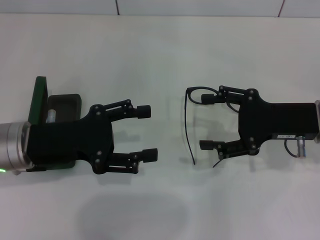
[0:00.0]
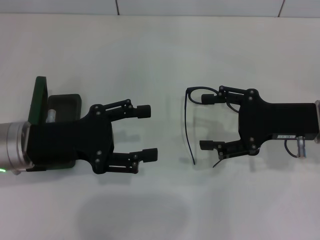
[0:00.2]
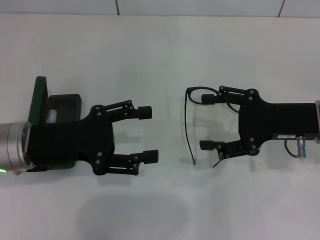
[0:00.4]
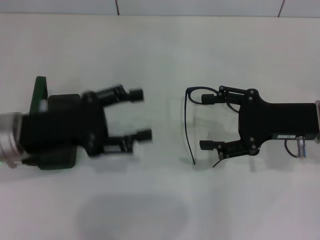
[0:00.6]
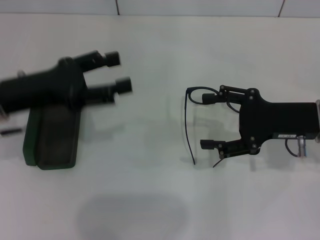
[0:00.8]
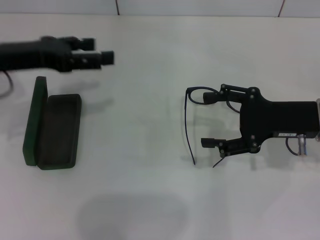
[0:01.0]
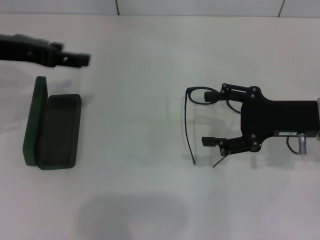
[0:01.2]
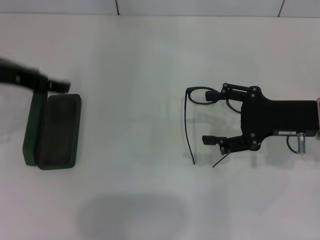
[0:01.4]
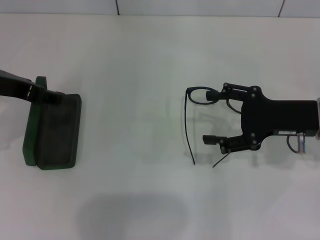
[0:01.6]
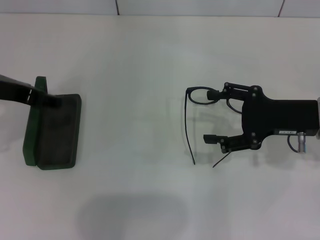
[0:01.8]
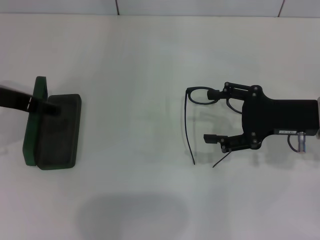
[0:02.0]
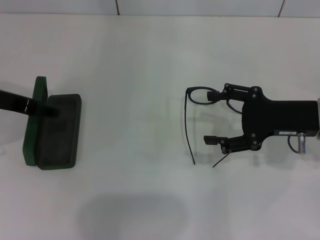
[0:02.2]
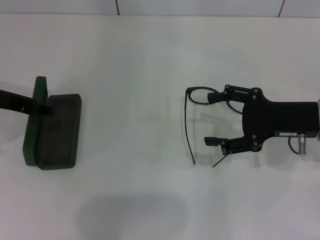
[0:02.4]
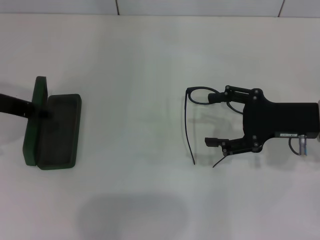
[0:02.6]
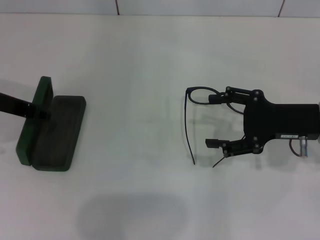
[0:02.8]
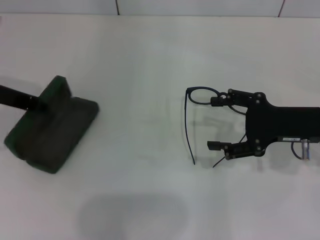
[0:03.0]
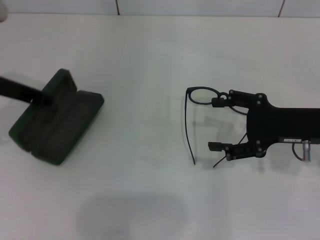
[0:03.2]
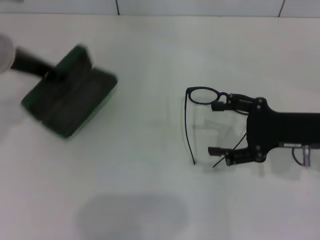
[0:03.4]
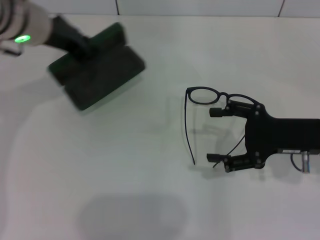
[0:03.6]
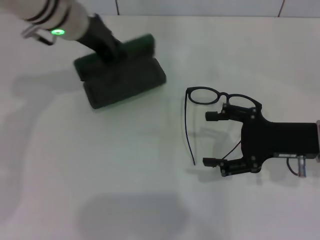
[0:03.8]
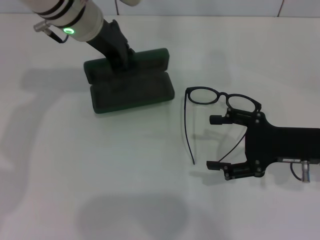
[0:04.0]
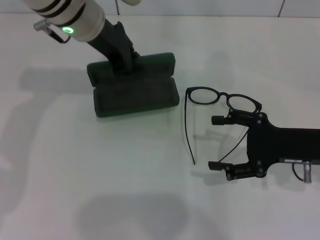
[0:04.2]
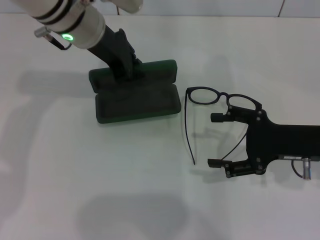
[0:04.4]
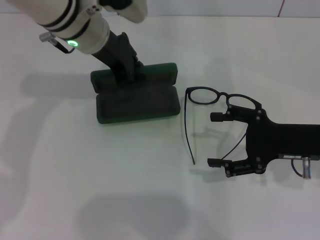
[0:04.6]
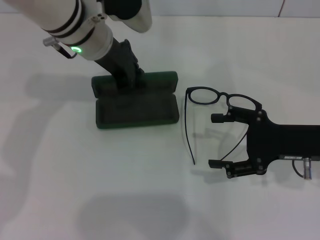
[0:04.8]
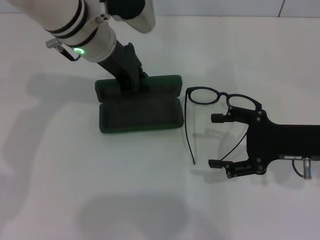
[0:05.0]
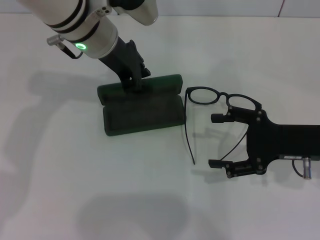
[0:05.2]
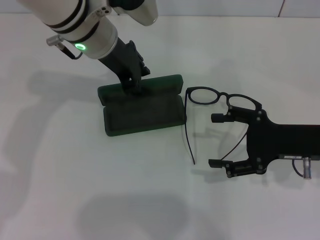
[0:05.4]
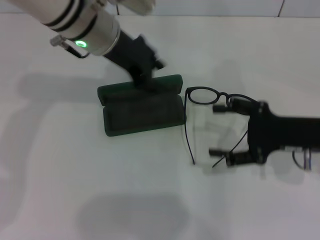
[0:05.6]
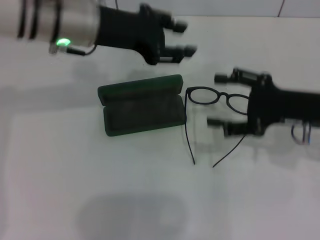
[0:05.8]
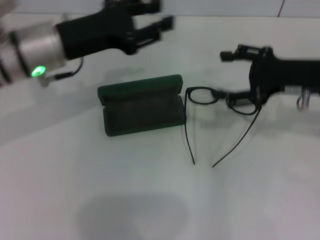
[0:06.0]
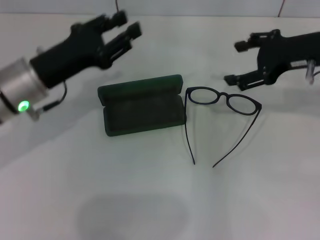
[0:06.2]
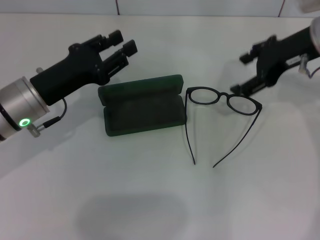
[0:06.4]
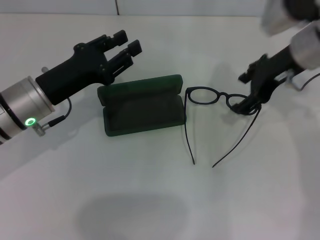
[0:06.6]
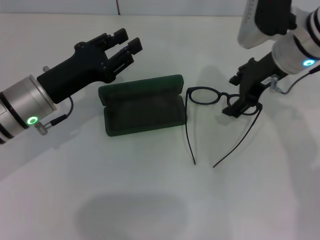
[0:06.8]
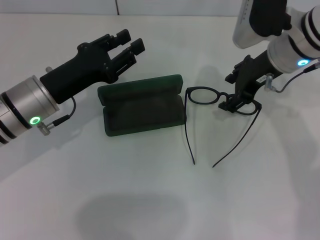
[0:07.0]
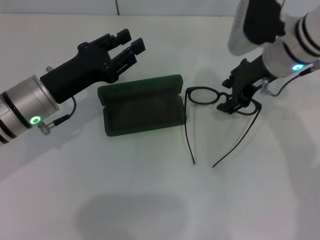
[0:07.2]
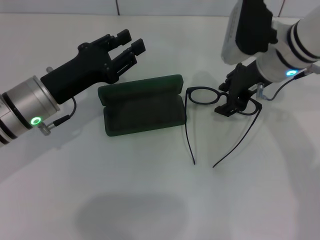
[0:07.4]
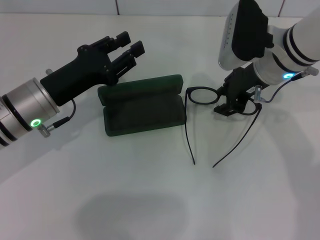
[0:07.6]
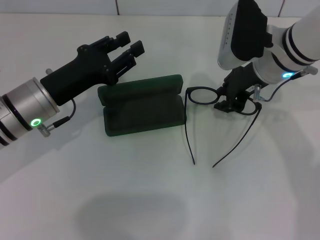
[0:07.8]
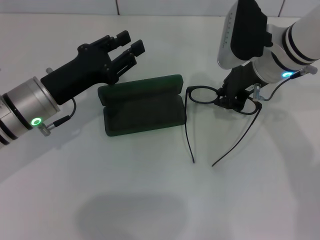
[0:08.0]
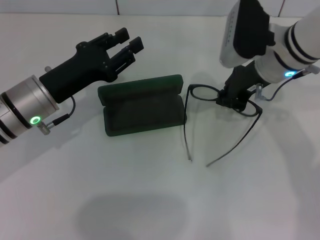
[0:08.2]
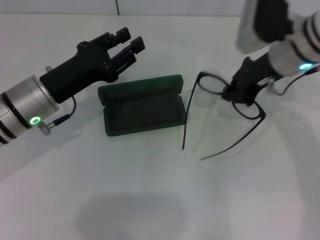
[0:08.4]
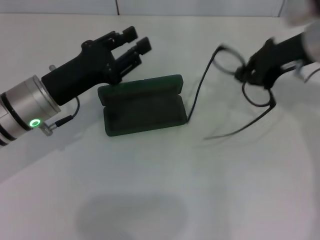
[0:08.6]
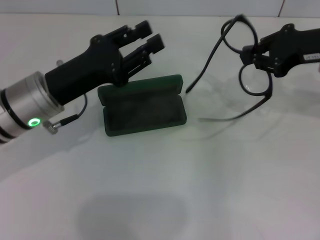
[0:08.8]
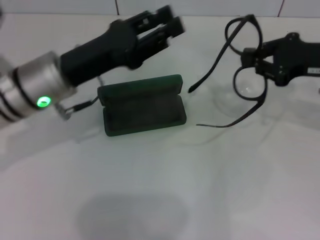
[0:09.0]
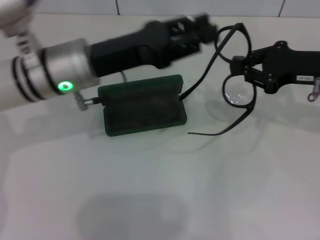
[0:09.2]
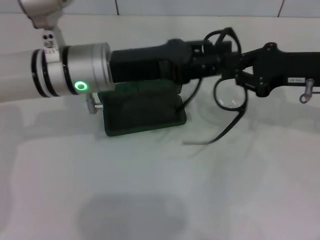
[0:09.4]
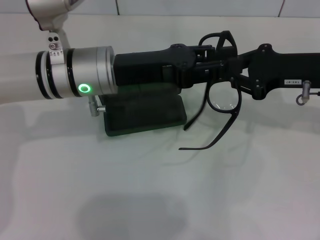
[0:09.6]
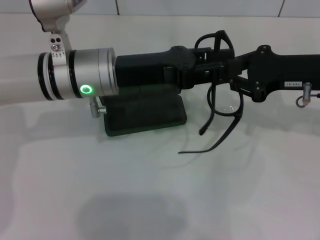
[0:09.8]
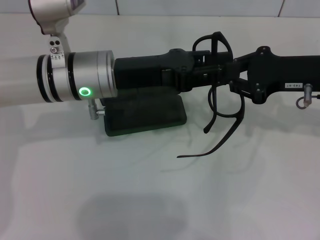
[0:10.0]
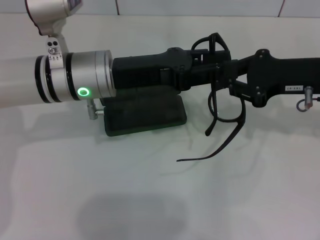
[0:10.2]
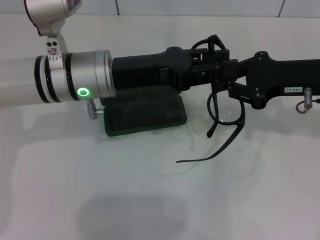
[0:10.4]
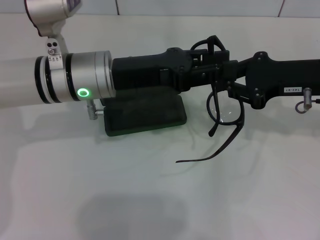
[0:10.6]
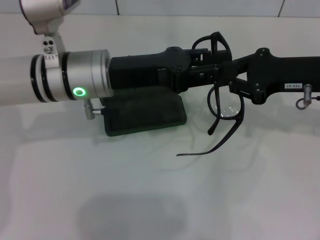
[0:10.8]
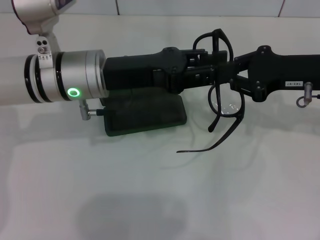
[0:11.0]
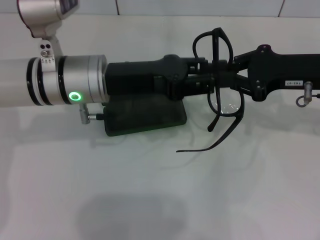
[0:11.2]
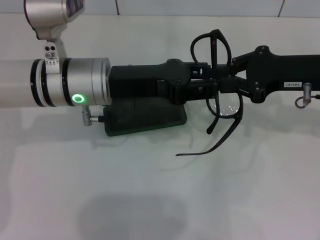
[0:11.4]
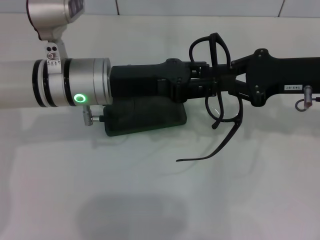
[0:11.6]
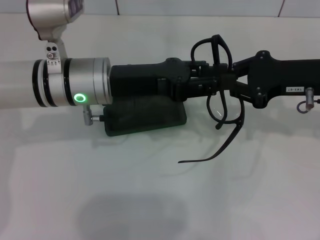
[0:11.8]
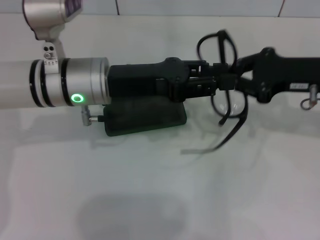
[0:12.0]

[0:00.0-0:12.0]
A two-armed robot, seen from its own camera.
Step, 0:00.0 to 0:03.2: Grab the glasses case with your left hand.
Step, 0:03.4 to 0:05.4: Place the glasses case in the center of the table with your left hand.
Step, 0:05.6 to 0:08.2: Grab the eyeglass frame with your right hand.
0:00.0 to 0:01.6: The left gripper moves upward, approximately 10 cm.
0:01.6 to 0:03.0: The left gripper closes its fingers.
0:03.0 to 0:04.4: The left gripper shifts some 15 cm to the right and forward, and closes.
0:04.4 to 0:06.0: The right gripper travels upward and forward by roughly 10 cm, while the left gripper heads to the left and backward, covering approximately 10 cm, and opens.
0:06.0 to 0:07.6: The right gripper moves to the left, some 10 cm. The left gripper is displaced downward by roughly 5 cm.
0:07.6 to 0:09.0: The right gripper goes approximately 15 cm to the right, and closes. Meanwhile the left gripper changes place by approximately 5 cm.
0:09.0 to 0:10.4: The left gripper shifts by about 5 cm.
0:10.4 to 0:12.0: The two grippers keep their place.

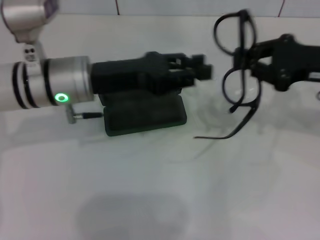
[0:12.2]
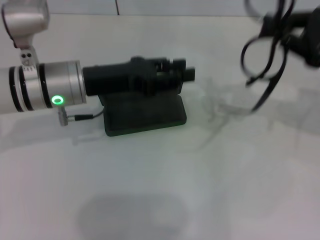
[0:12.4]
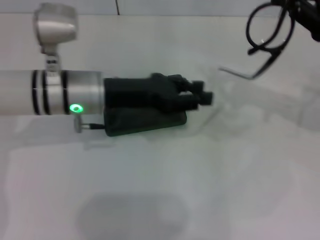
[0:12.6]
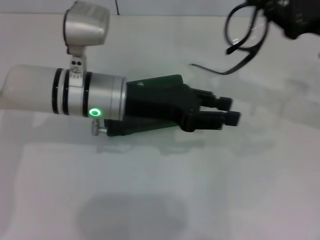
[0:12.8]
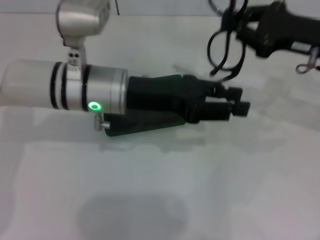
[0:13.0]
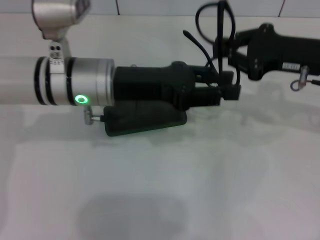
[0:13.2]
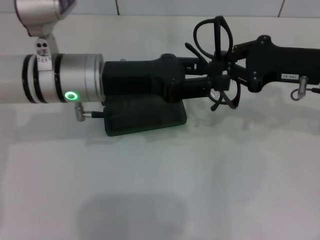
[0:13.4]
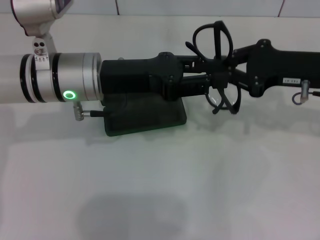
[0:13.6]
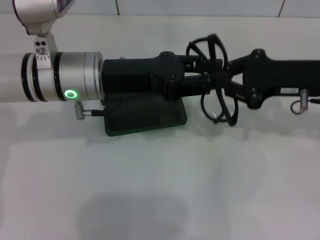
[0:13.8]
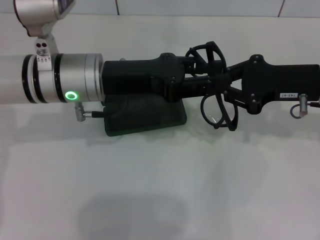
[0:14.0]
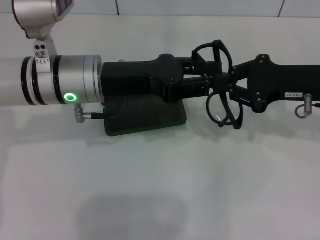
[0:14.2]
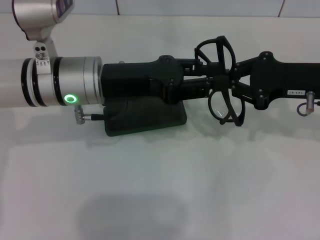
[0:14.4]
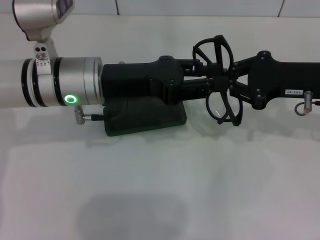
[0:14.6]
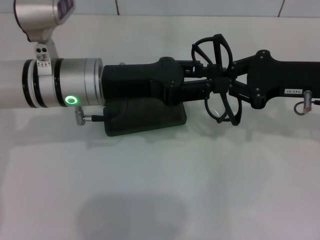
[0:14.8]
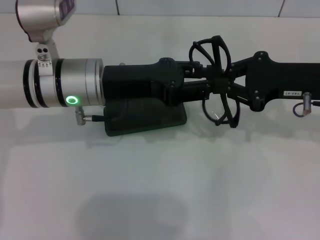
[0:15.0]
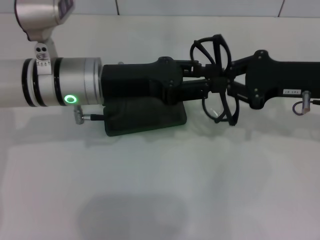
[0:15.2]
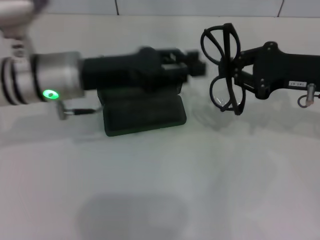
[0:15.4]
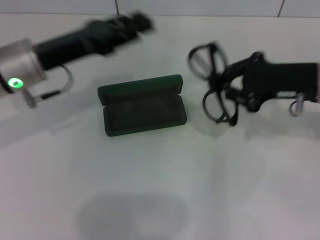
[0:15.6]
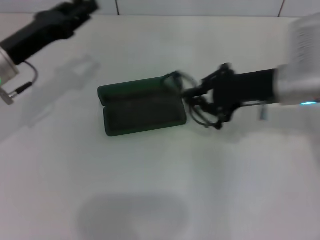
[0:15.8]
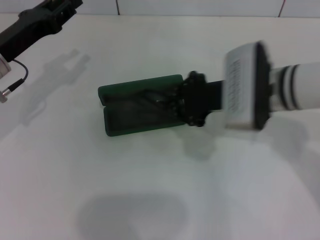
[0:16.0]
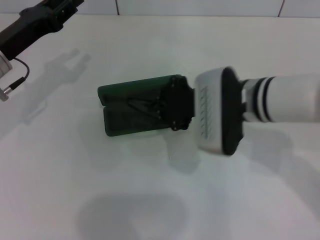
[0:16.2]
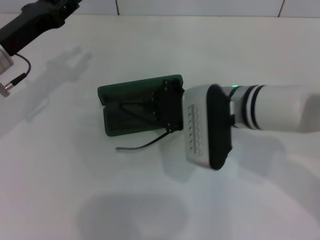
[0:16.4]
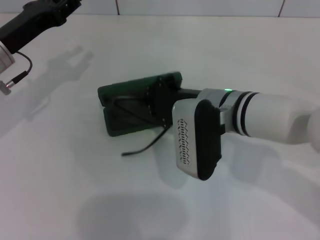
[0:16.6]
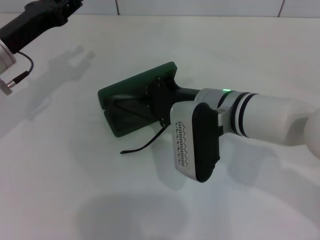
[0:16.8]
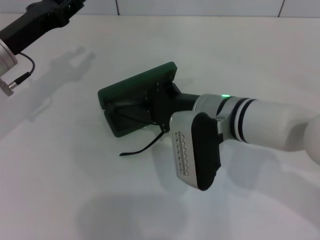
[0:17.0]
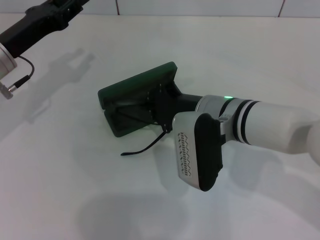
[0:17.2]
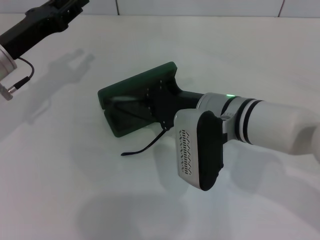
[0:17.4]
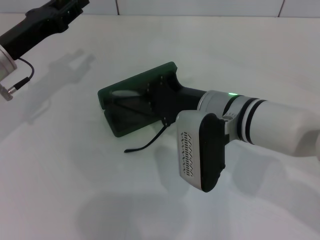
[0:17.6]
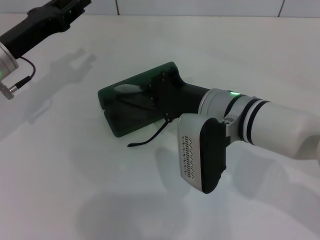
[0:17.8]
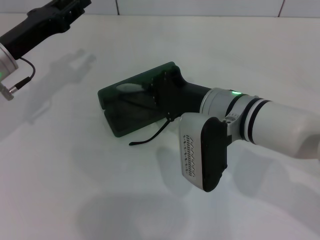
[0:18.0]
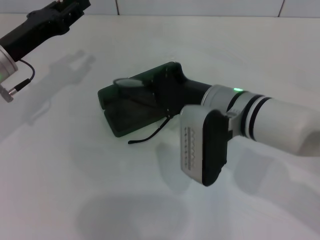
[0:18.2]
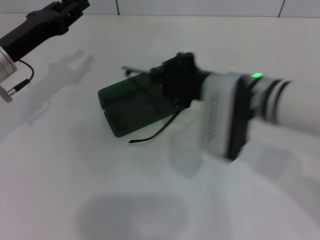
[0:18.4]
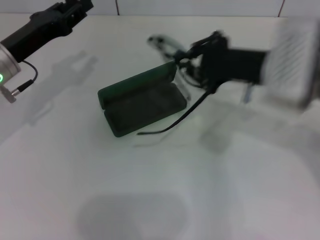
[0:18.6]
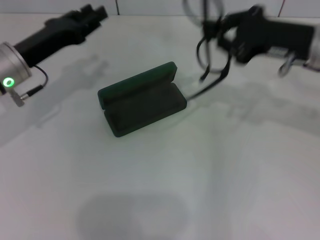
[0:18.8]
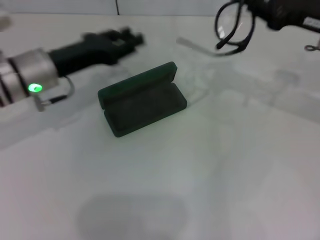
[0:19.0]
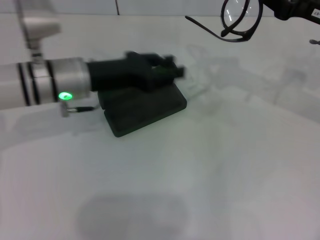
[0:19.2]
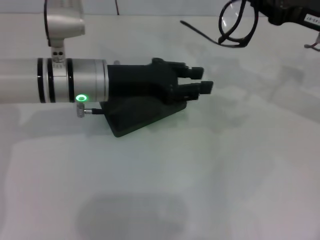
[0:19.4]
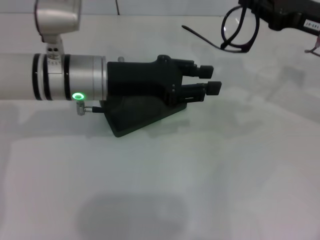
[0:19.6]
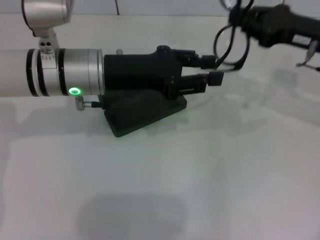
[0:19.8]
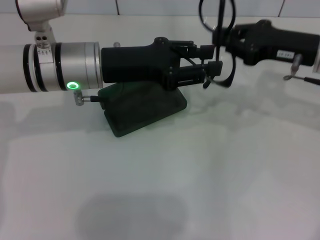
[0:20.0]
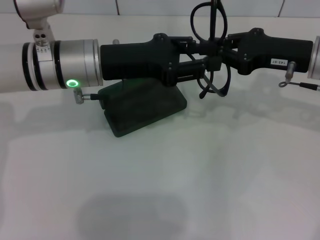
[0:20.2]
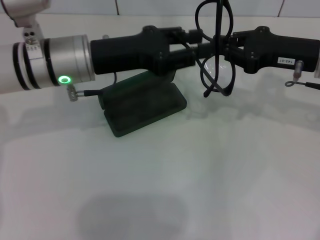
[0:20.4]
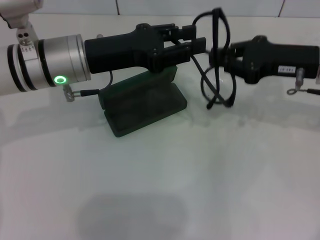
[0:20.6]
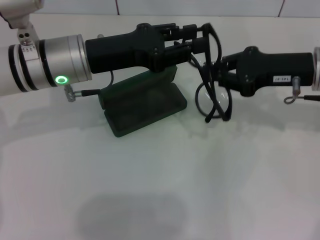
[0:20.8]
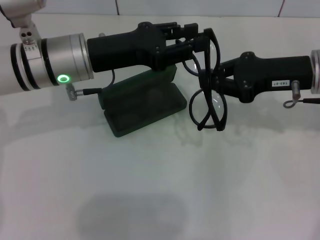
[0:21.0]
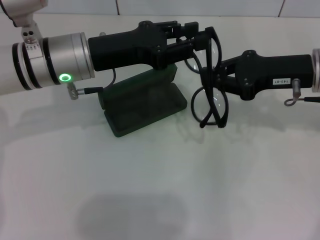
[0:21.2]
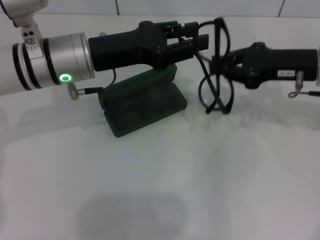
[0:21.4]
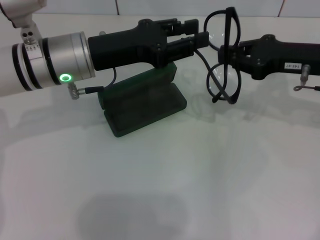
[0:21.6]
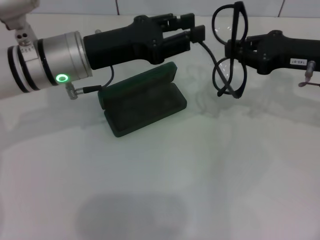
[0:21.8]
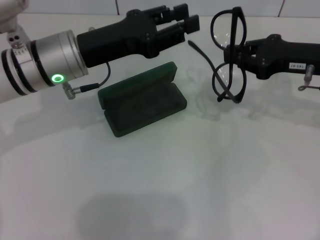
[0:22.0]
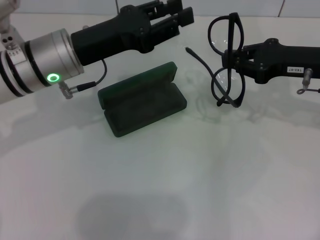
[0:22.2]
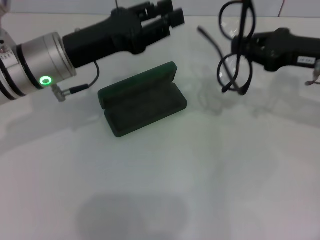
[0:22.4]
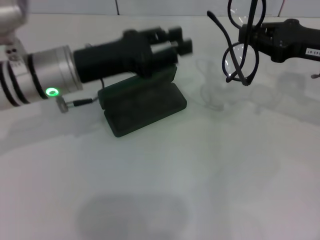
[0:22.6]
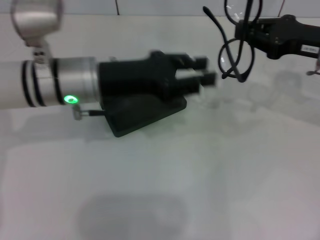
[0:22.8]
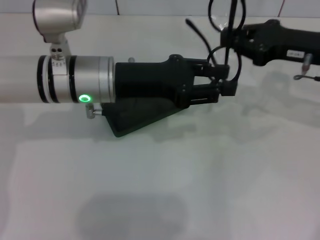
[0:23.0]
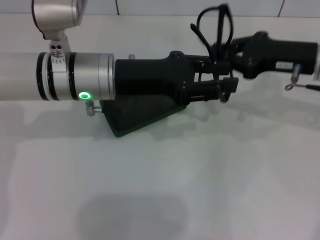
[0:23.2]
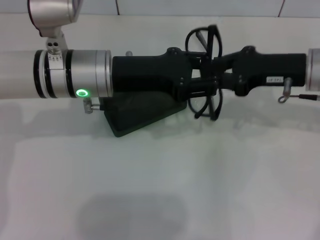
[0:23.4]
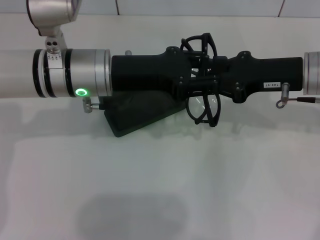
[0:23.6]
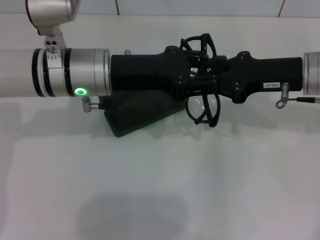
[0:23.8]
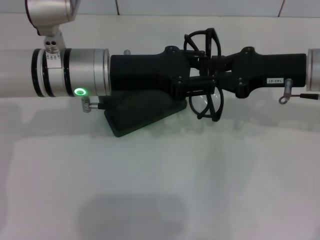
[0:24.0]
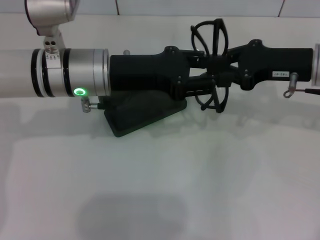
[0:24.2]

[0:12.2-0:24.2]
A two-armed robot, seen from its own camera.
0:12.2 to 0:13.8: The grippers make only small movements.
0:13.8 to 0:15.2: Both grippers stay about where they are.
0:15.2 to 0:16.6: The grippers both shift to the left by some 15 cm.
0:16.6 to 0:18.2: There are only small adjustments of the grippers.
0:18.2 to 0:19.8: The right gripper is displaced to the right and forward by approximately 20 cm. Meanwhile the left gripper travels to the right by roughly 10 cm.
